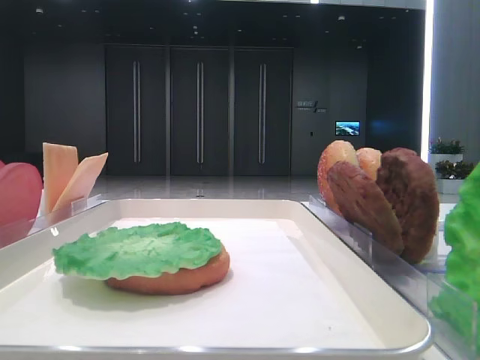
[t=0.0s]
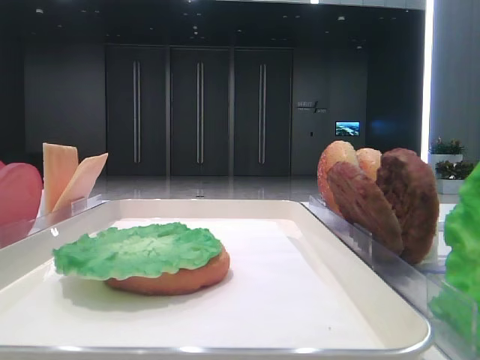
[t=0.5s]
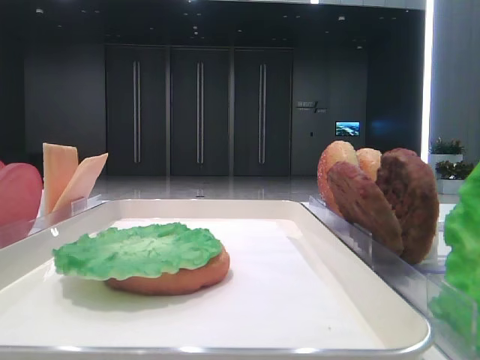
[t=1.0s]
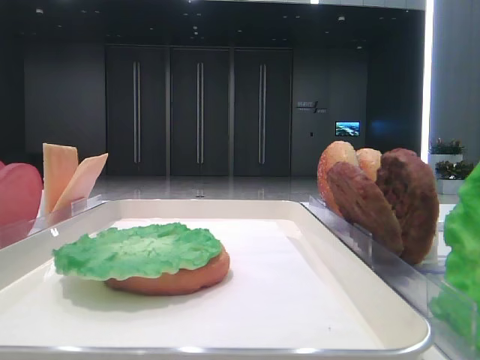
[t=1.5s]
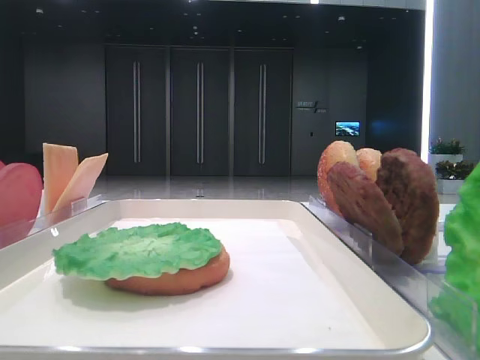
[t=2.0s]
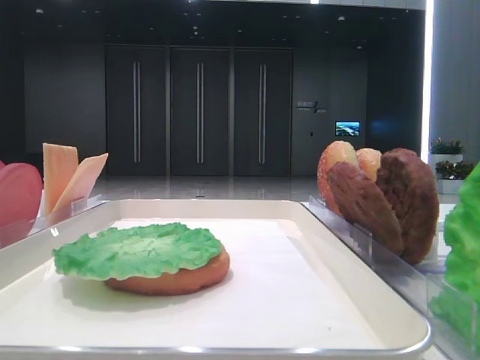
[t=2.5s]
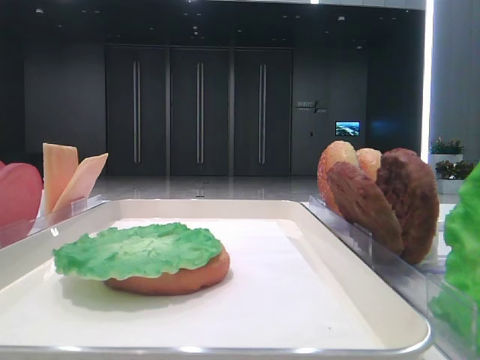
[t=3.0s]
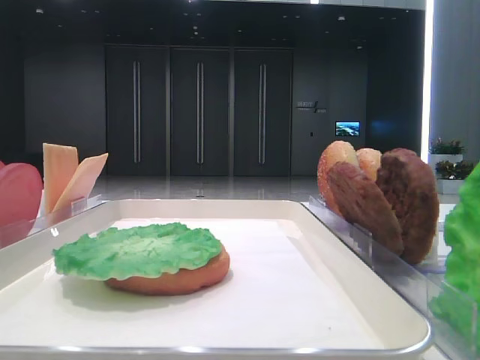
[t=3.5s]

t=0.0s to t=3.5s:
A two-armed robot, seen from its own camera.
t=2.0s to t=3.5s: The two grippers keep their place.

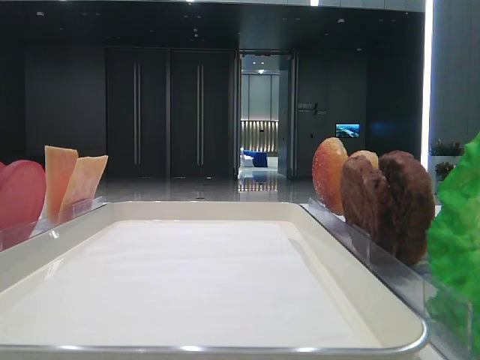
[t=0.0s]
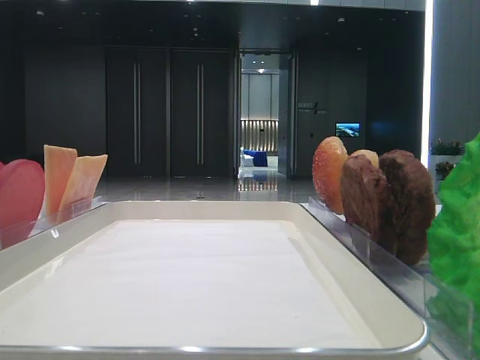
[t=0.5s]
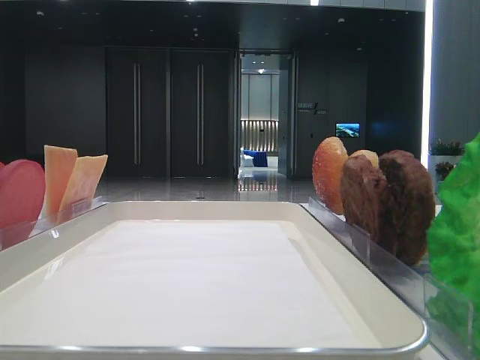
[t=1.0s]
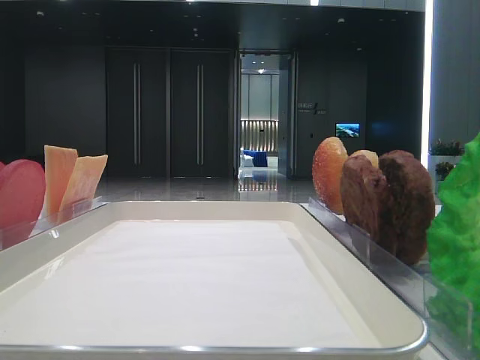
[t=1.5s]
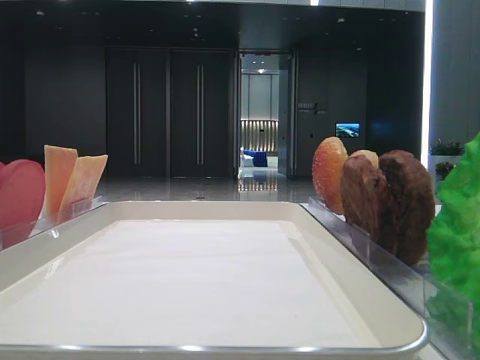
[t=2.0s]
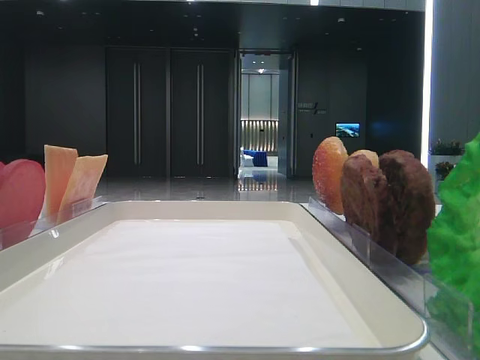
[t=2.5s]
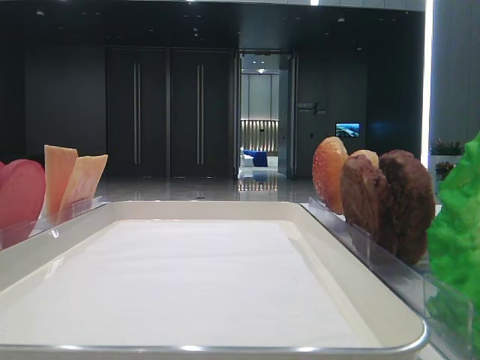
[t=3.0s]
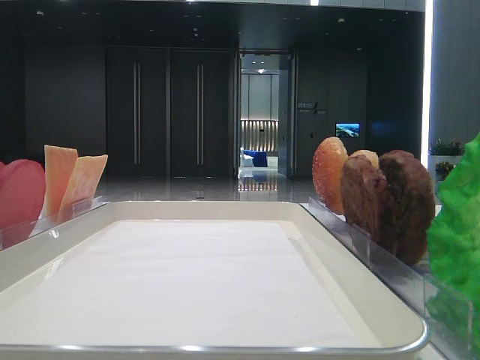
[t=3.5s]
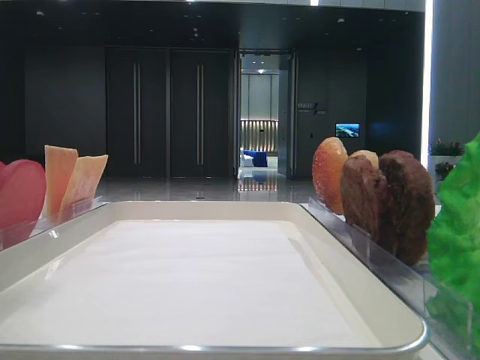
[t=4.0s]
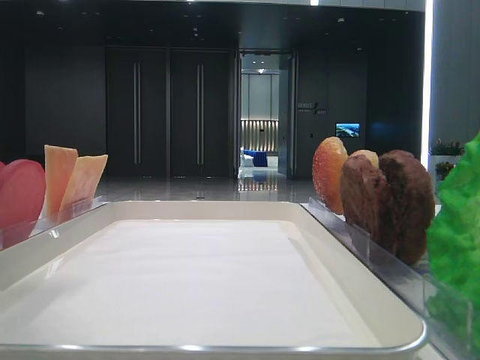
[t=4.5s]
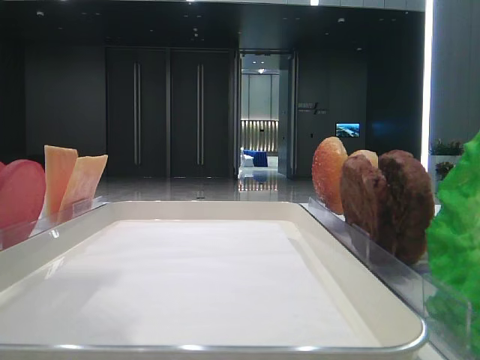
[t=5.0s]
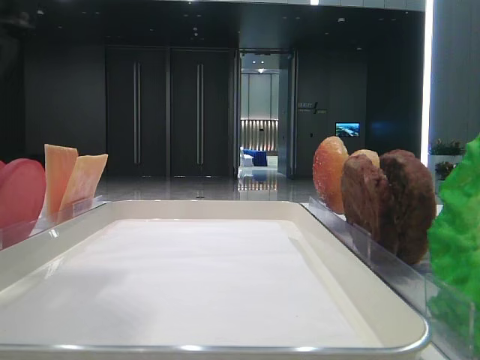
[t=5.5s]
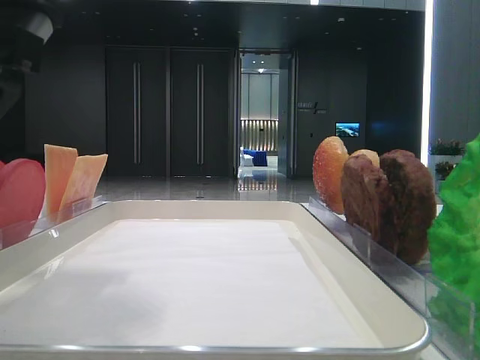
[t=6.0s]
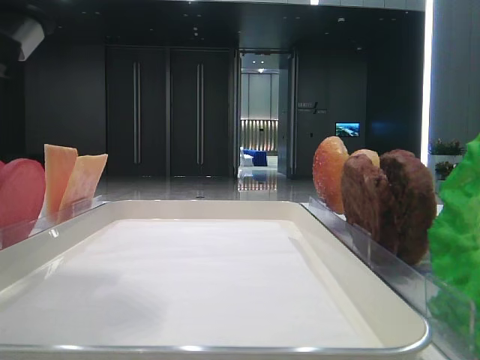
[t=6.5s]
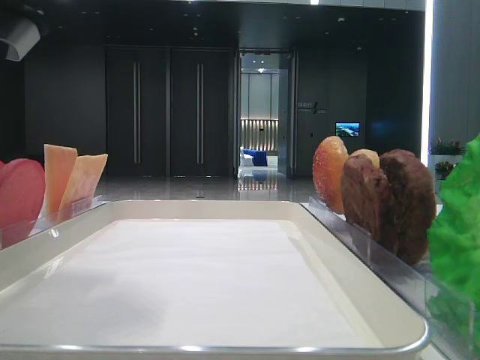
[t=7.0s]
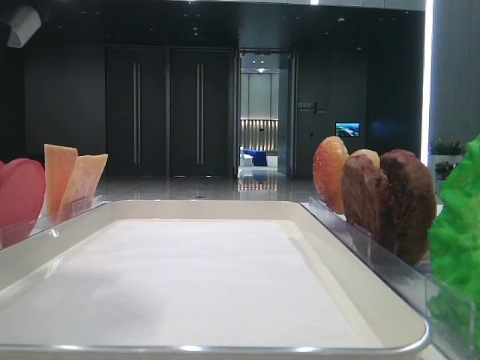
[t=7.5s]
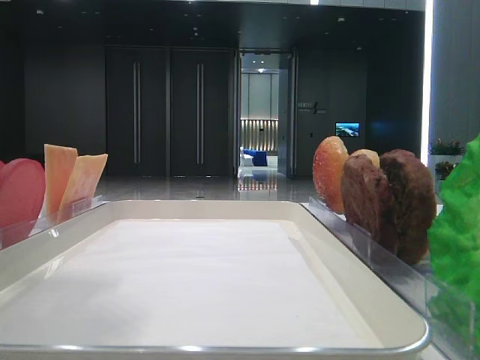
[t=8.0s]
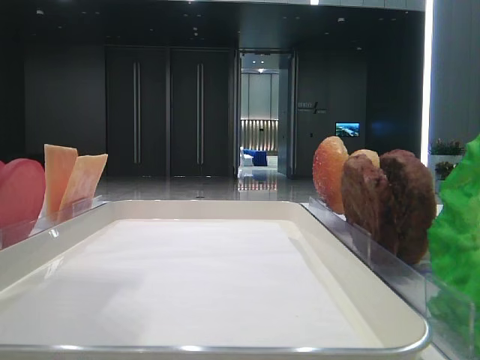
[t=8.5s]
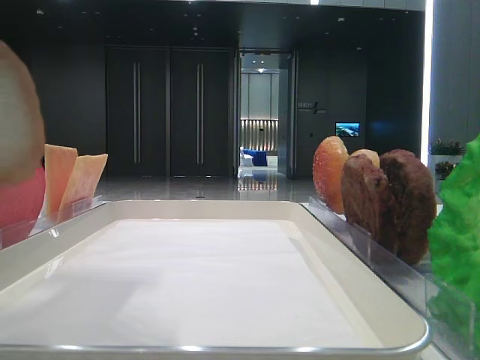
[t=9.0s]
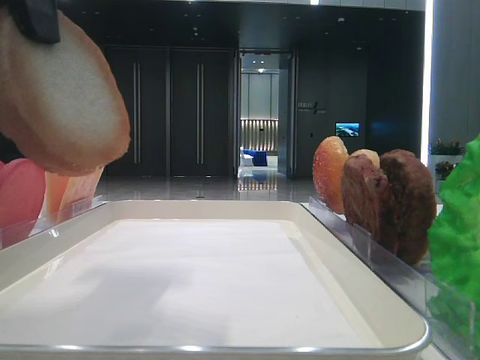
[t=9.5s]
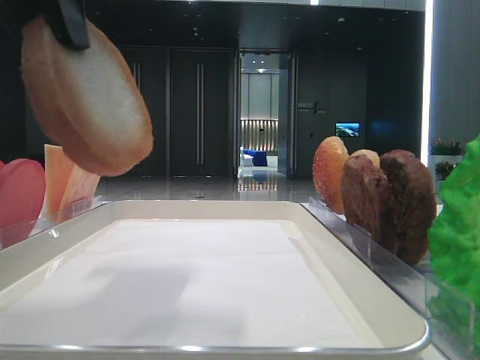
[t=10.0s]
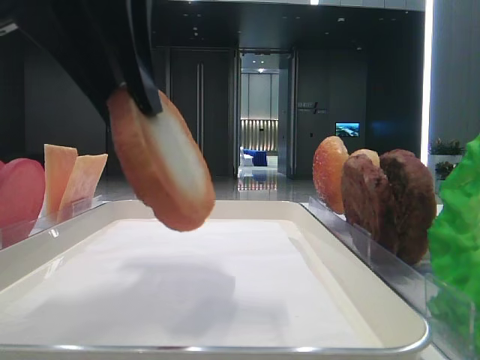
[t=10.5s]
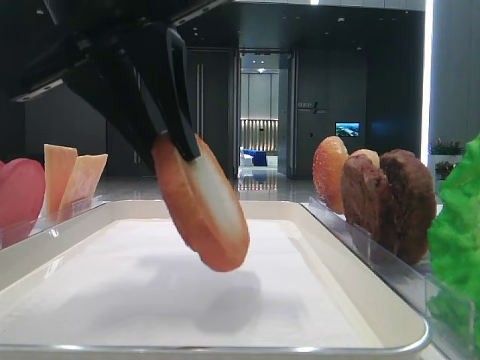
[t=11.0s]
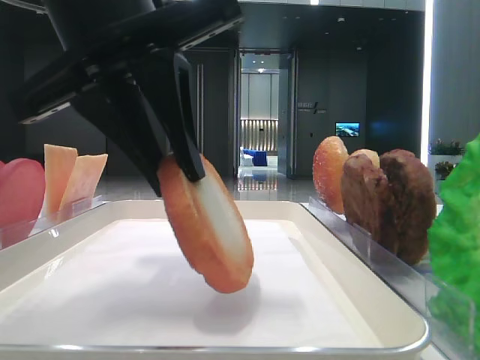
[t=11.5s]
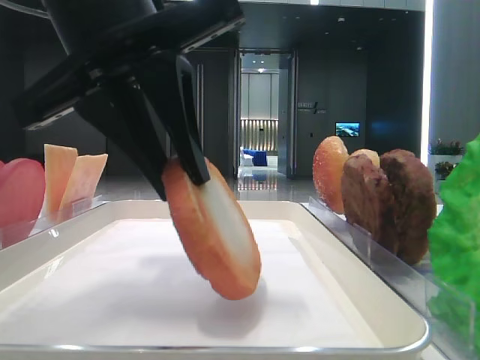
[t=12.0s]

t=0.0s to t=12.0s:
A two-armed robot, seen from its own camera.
Step, t=0.0s to t=7.0s: Pick up the bottom bread with the left hand.
t=4.0s to t=6.0s: The left gripper moves downward and to the right, about 10 cm.
t=8.0s to t=10.0s: The left gripper moves about 5 cm.
t=10.0s to t=12.0s: The left gripper is displaced downward by approximately 10 cm.

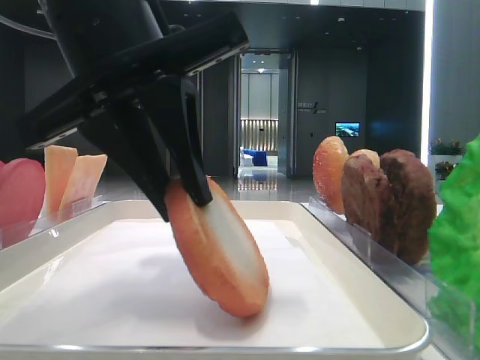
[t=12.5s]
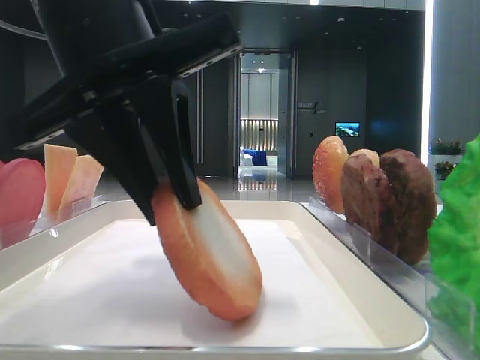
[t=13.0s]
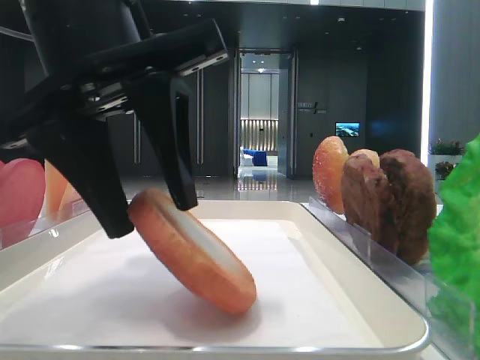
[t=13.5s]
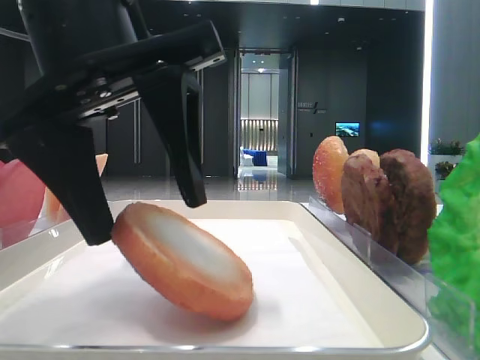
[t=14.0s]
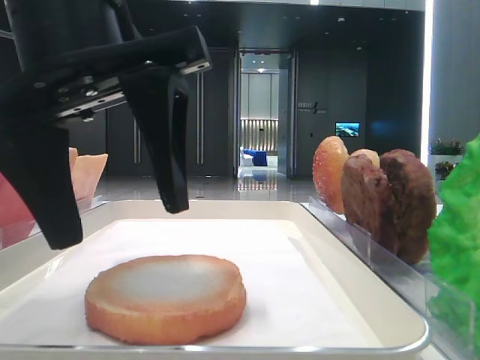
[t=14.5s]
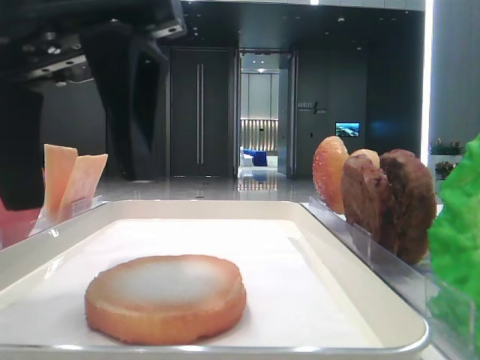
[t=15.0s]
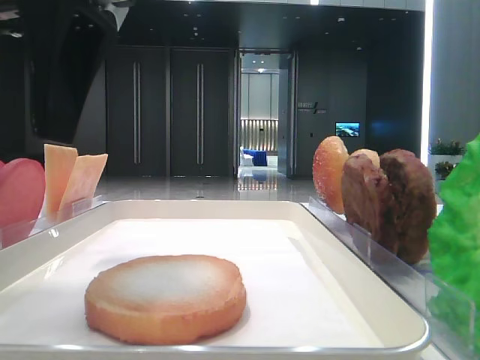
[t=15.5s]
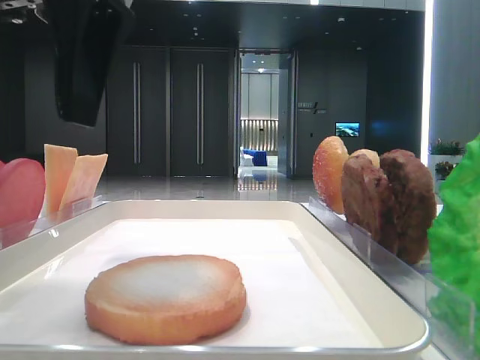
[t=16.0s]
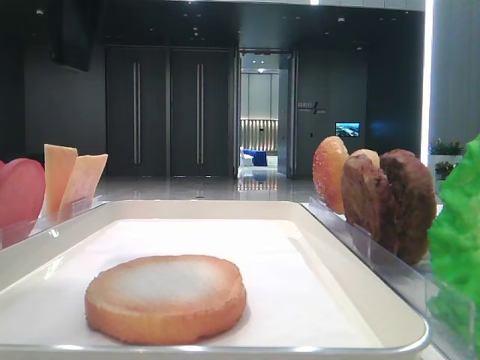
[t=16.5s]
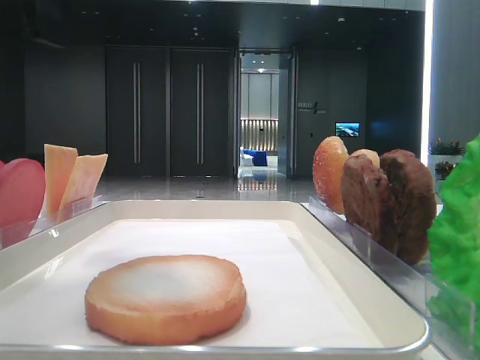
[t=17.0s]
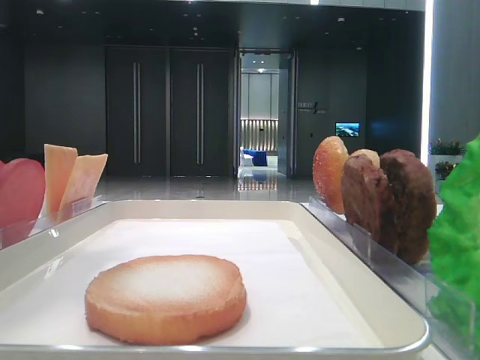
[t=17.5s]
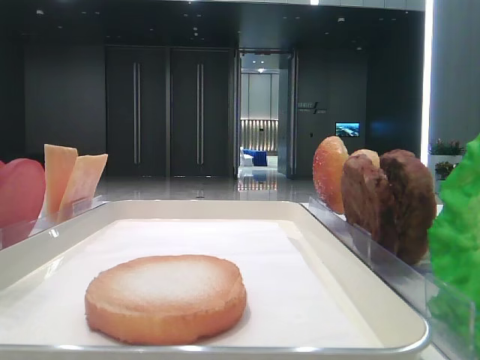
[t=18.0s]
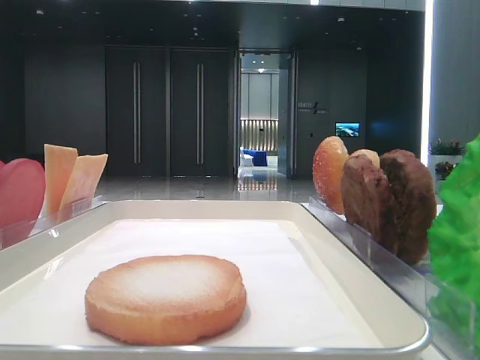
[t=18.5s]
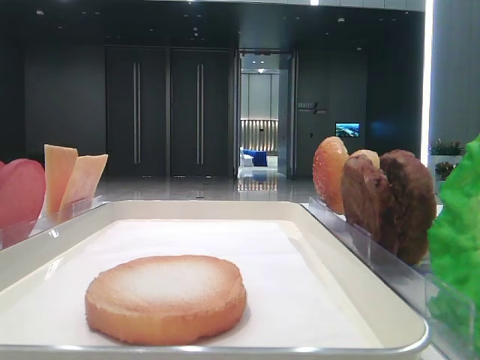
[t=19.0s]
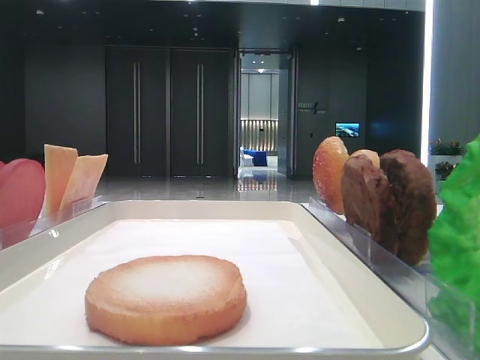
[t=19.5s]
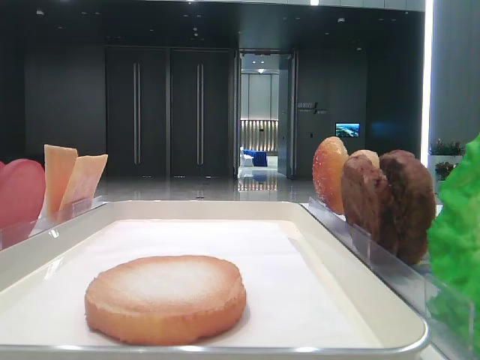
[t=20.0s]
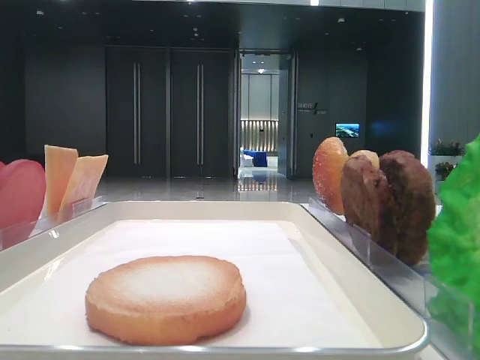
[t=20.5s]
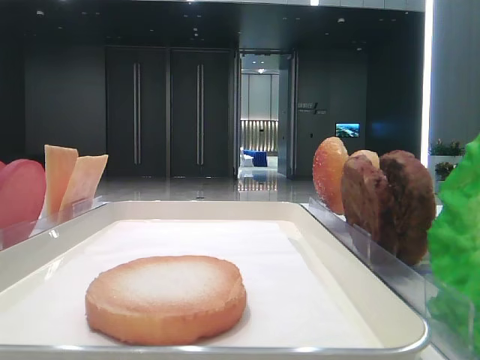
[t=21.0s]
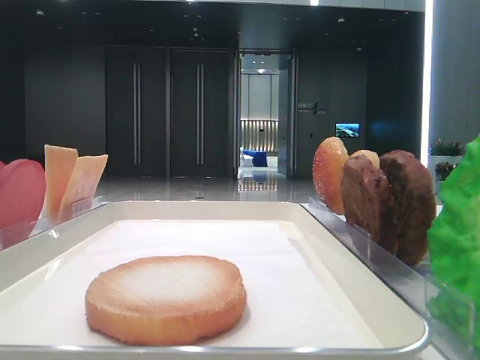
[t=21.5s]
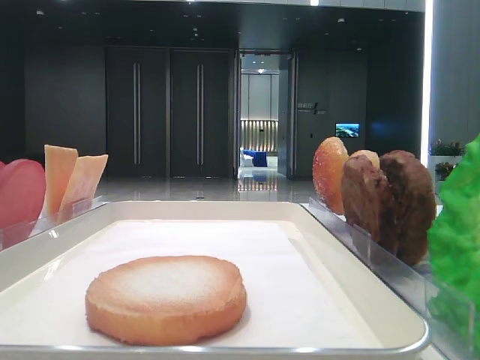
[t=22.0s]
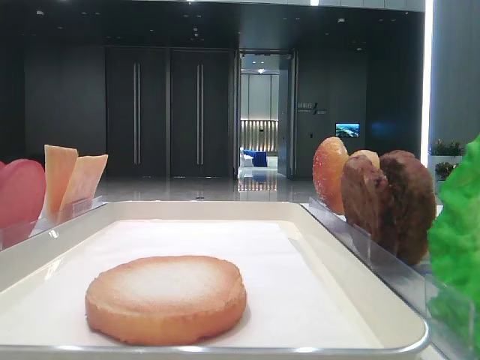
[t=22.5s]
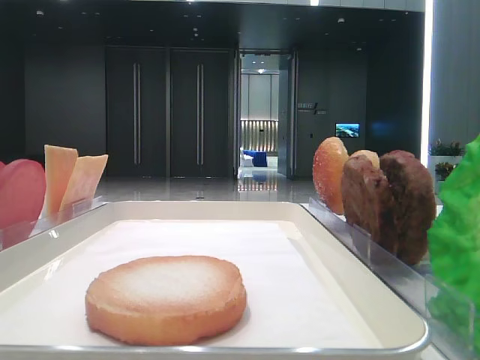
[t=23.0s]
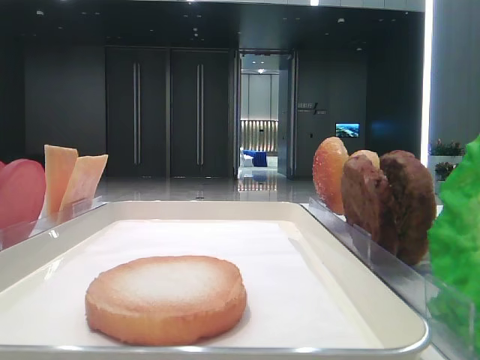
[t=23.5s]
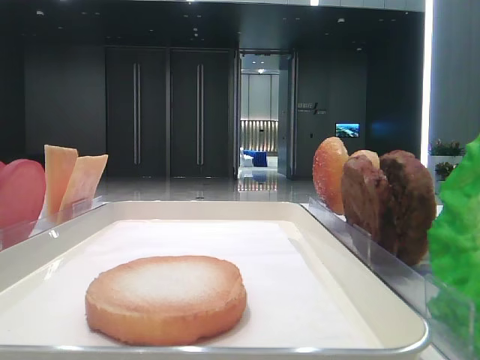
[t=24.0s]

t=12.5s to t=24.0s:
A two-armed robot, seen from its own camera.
t=12.5s to t=14.5s: The left gripper opens up.
t=14.5s to t=16.5s: The left gripper travels upward by about 10 cm.
t=16.5s to t=18.5s: The left gripper moves to the left, roughly 15 cm.
t=22.0s to t=24.0s: Neither gripper changes place.
